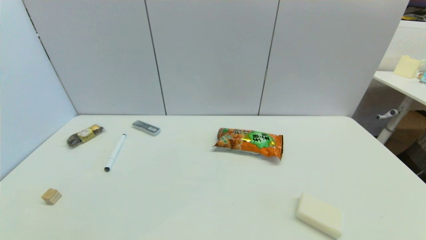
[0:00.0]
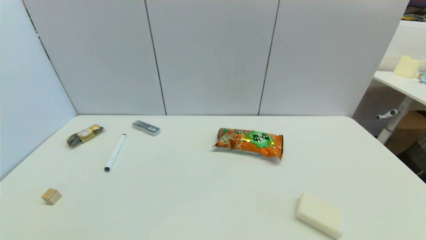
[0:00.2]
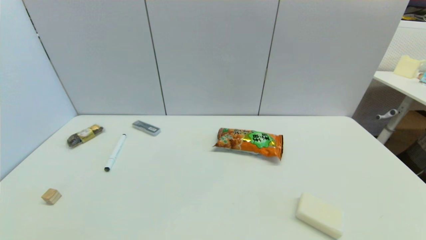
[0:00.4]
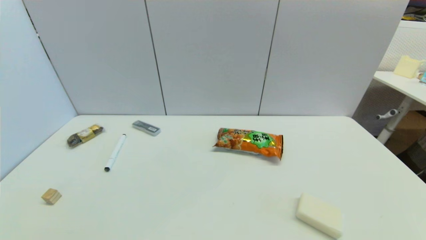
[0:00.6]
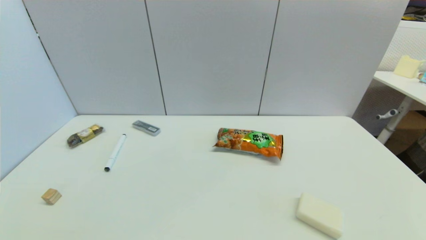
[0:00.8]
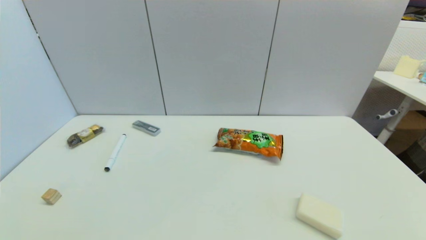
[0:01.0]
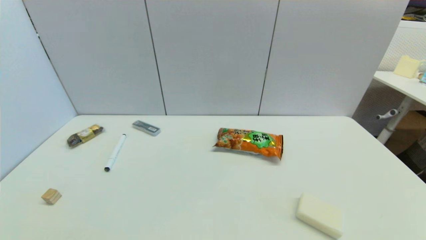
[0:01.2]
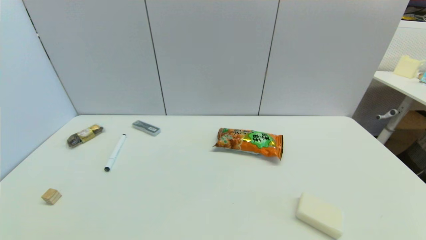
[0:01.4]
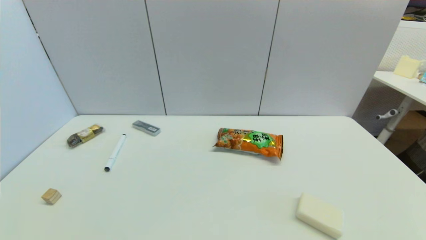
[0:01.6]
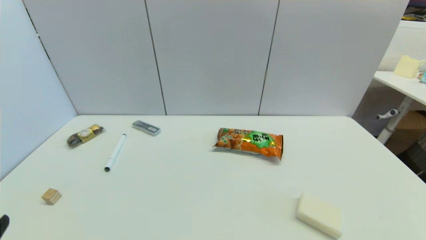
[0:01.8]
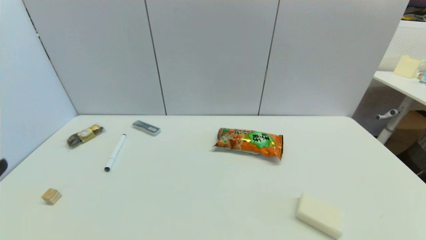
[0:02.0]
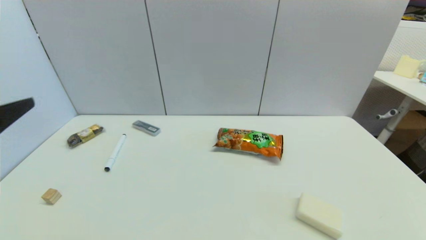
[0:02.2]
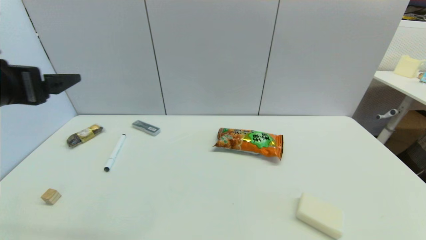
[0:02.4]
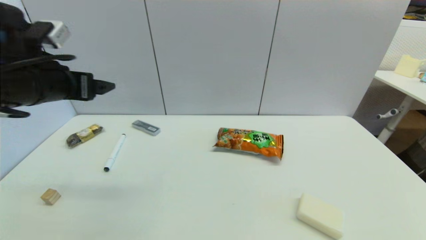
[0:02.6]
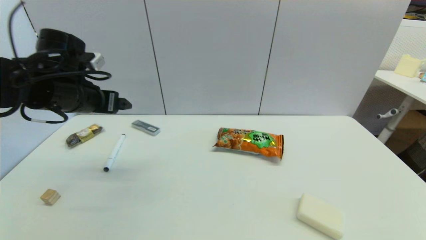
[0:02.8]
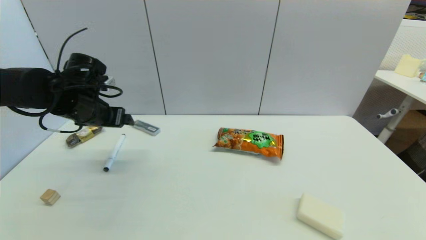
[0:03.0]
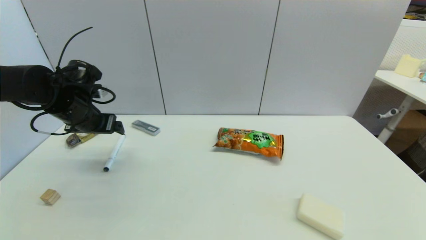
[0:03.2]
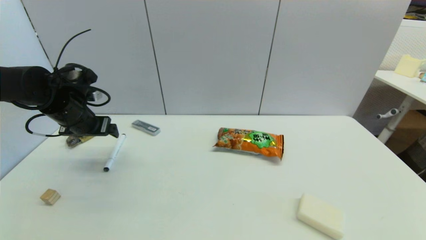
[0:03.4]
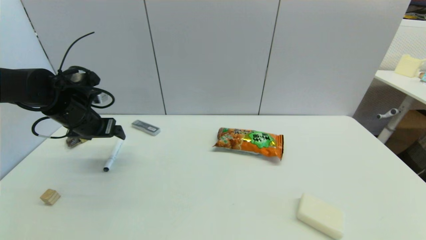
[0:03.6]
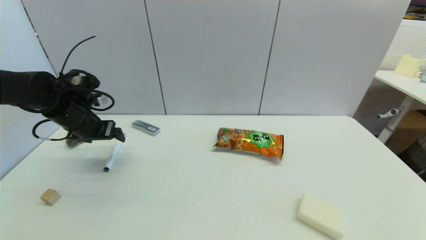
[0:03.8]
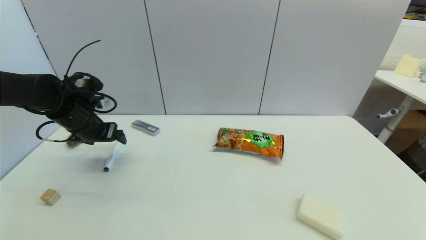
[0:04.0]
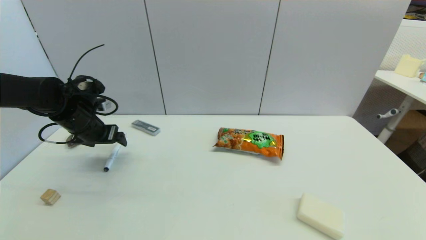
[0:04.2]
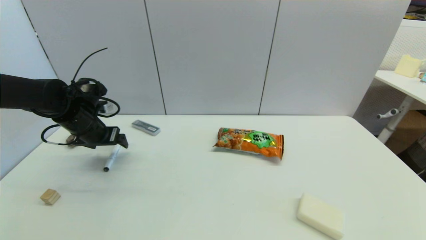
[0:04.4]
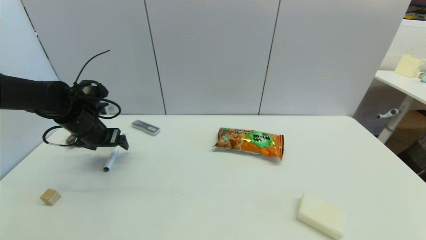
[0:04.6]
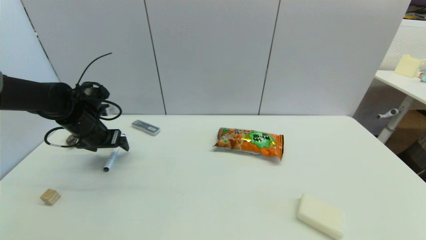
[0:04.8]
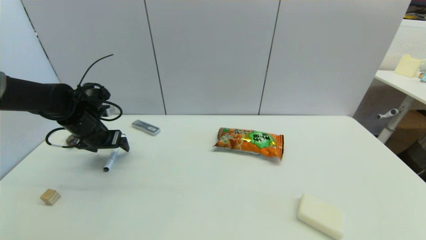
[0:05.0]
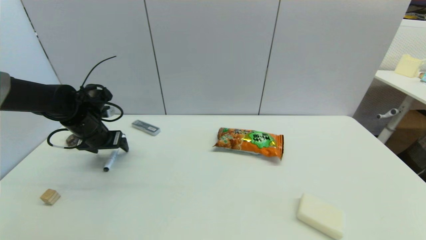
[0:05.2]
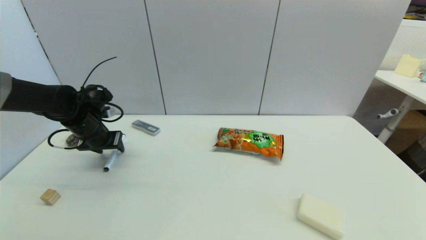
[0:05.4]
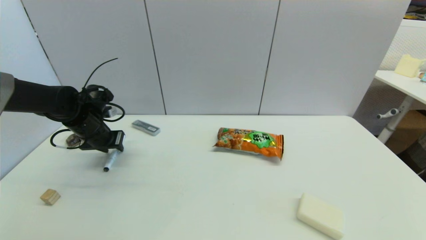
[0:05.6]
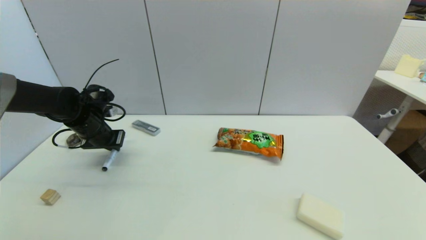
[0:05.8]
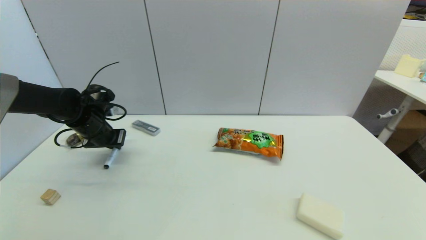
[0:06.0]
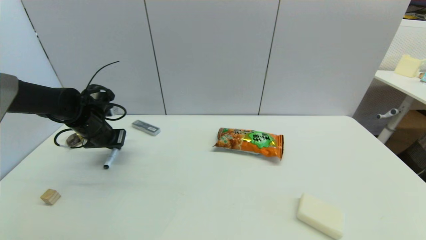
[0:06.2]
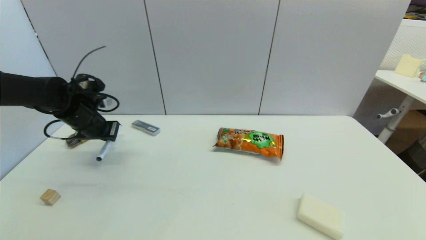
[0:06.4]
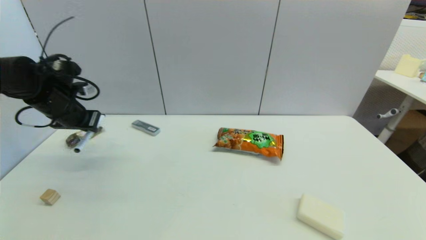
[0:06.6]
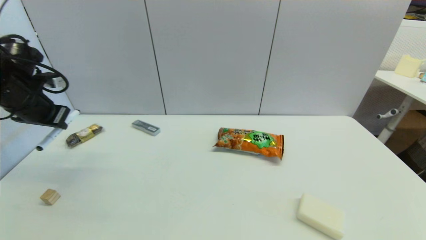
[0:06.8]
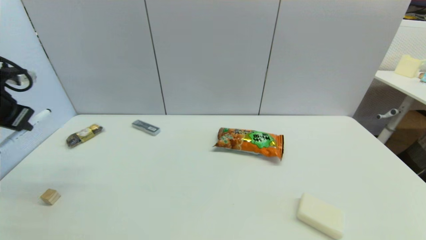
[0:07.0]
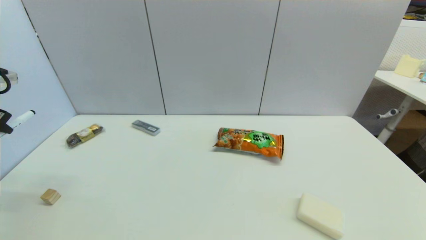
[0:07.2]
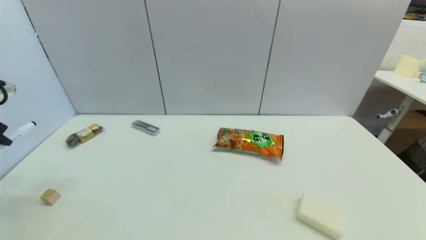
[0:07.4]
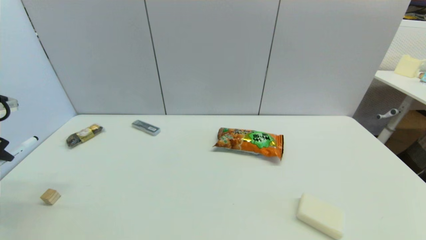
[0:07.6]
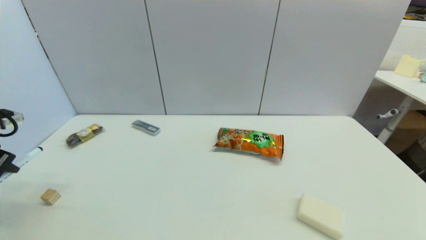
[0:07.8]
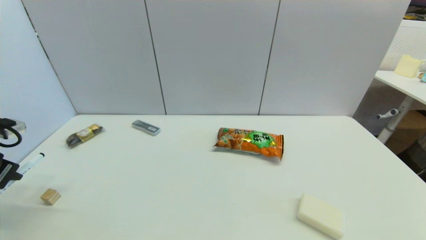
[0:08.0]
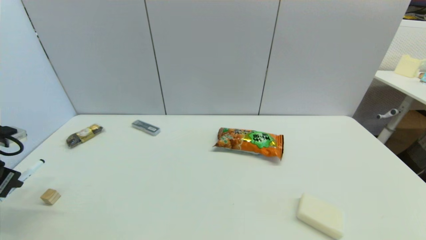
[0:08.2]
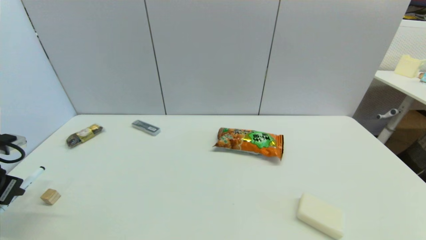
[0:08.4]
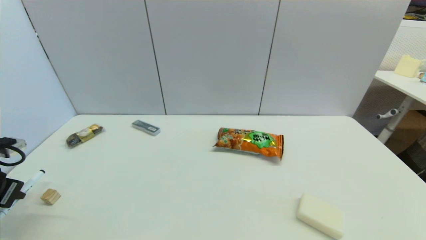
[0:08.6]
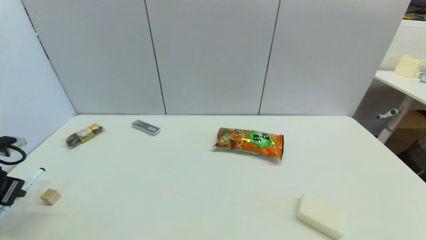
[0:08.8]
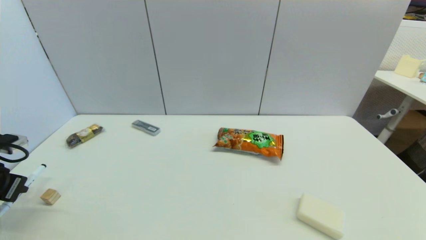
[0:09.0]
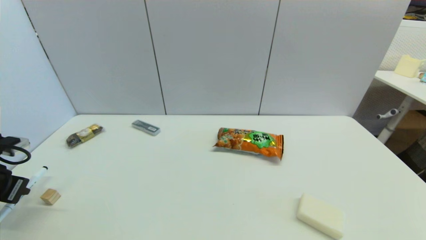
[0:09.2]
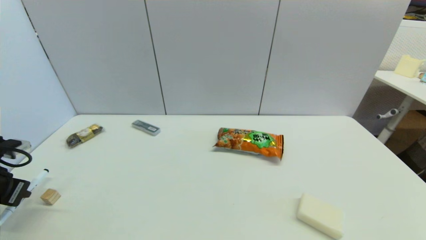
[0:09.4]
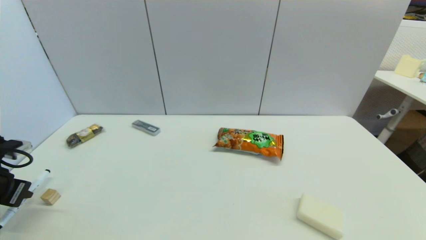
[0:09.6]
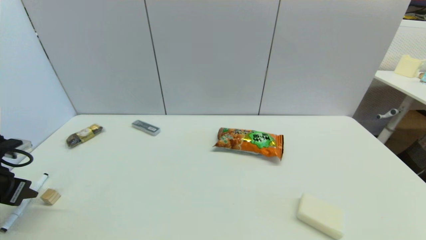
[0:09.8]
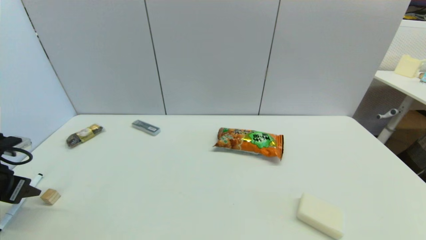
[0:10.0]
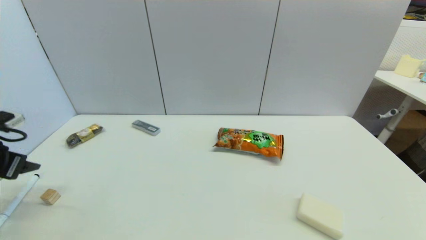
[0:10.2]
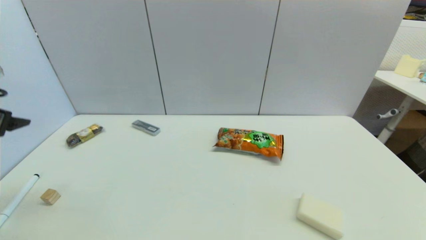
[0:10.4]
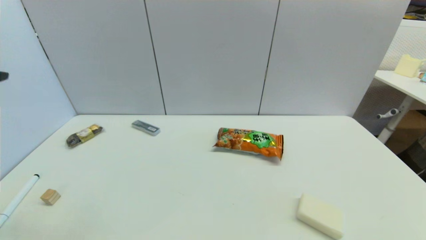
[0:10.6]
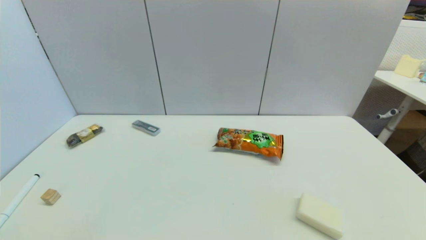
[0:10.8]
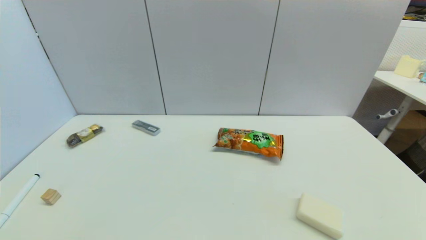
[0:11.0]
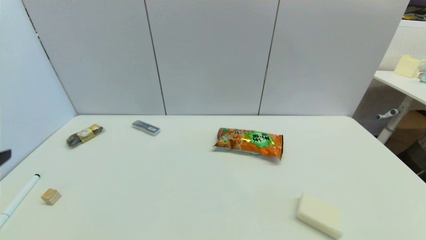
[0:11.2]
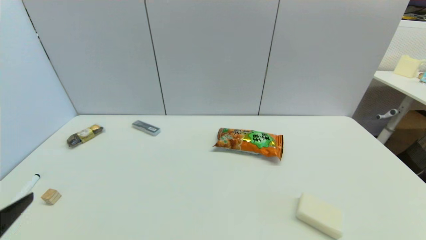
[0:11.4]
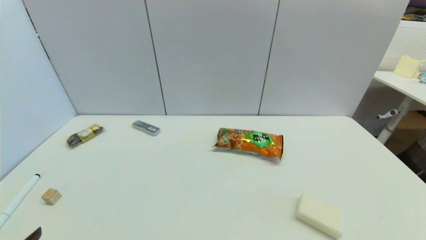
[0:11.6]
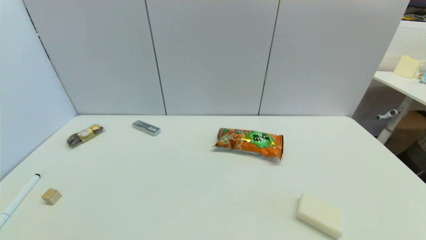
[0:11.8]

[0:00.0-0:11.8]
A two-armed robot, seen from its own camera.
Task of the whole recording: put the black marker in the designated position.
Step, 0:01.8 to 0:05.8: Grasp the Marker pen with left gripper.
Step, 0:06.0 to 0:09.8: Place the Marker pen on the table with left gripper.
0:00.0 to 0:01.4: Both grippers stay put.
0:01.4 to 0:03.0: The left gripper is displaced forward by about 35 cm.
0:03.0 to 0:04.4: The left gripper shifts approximately 5 cm downward.
0:04.4 to 0:06.0: The left gripper closes up.
0:06.0 to 0:07.4: The left gripper goes about 25 cm to the left, backward and upward.
0:07.4 to 0:08.8: The left gripper is displaced downward by roughly 10 cm.
0:08.8 to 0:10.4: The left gripper goes some 10 cm upward, and opens up.
0:10.4 to 0:11.8: The left gripper is displaced backward, downward and to the right by about 30 cm.

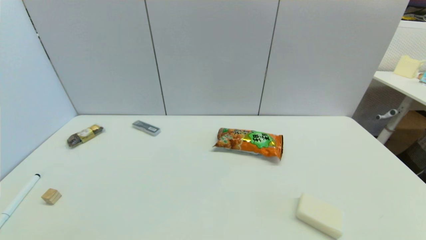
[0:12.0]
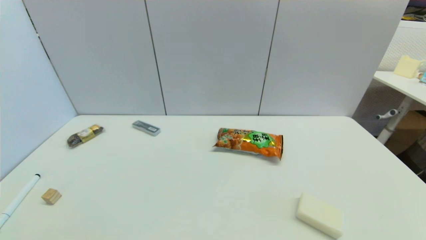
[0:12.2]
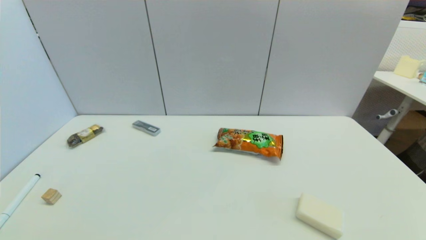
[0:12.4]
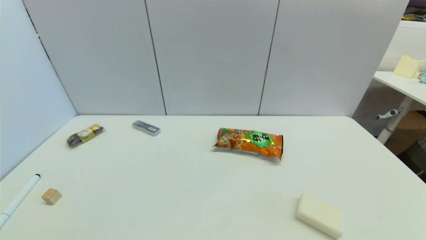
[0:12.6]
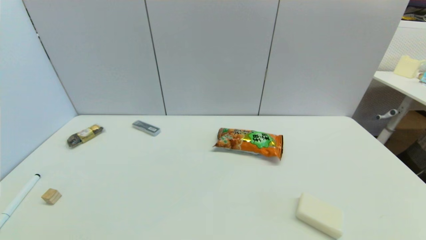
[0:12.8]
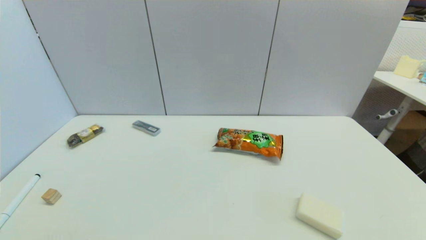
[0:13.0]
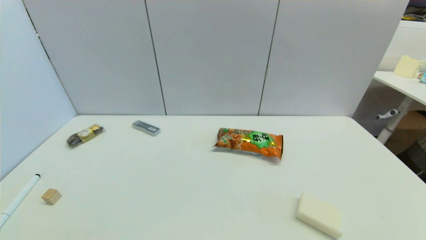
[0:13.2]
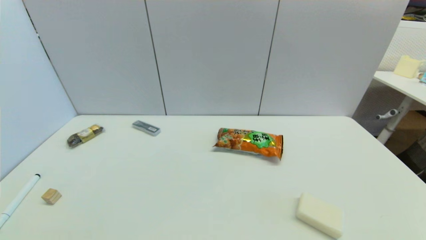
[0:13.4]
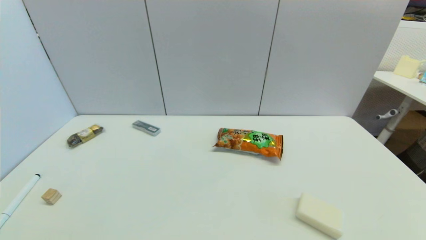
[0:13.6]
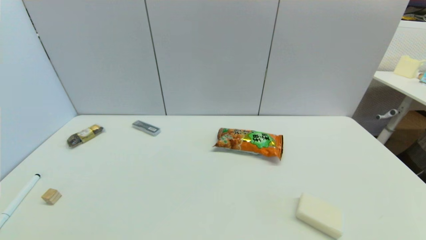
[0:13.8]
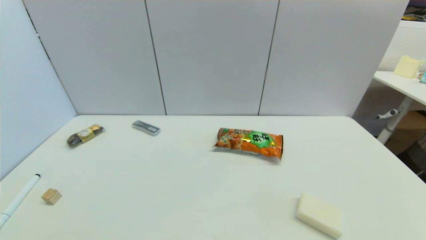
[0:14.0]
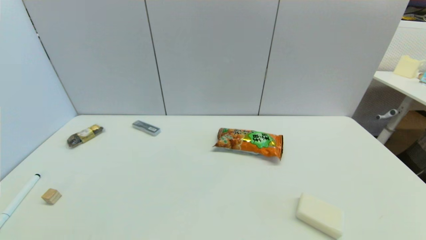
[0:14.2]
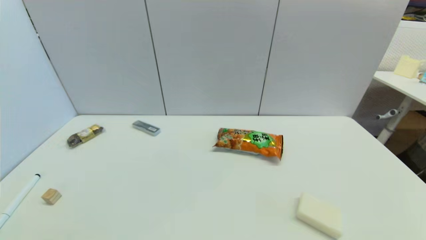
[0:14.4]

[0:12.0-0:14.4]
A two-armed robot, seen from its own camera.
Task of the whole recording: put the black marker in the designated position.
0:13.2 to 0:14.4: Neither gripper changes place.
